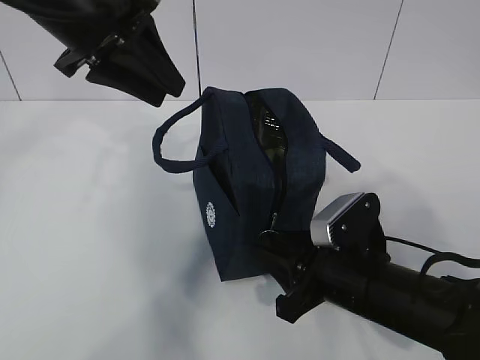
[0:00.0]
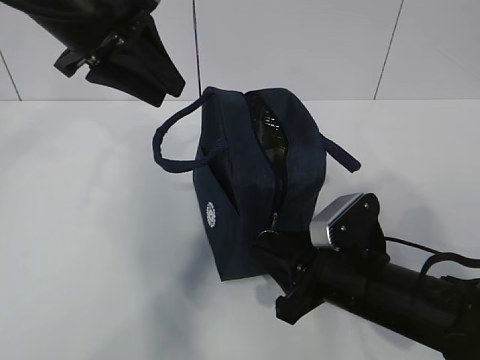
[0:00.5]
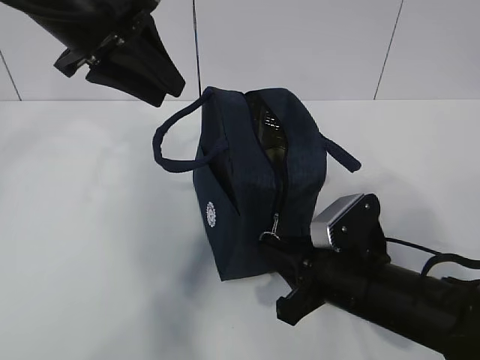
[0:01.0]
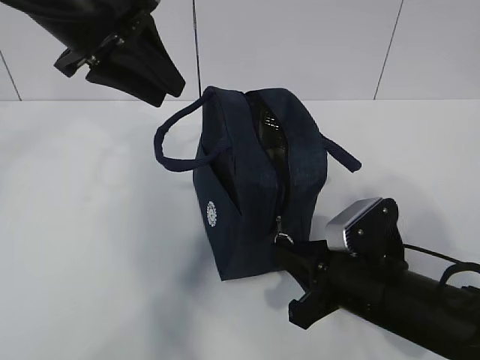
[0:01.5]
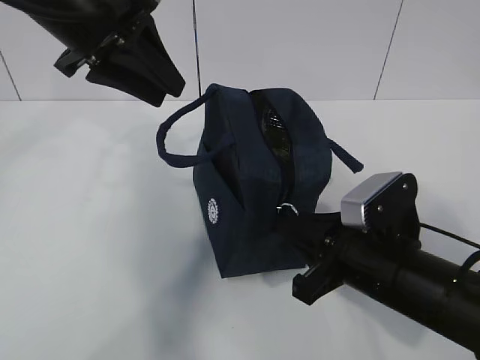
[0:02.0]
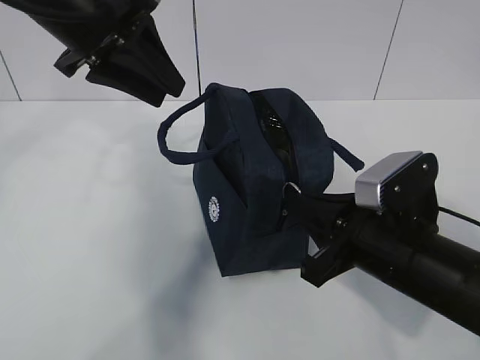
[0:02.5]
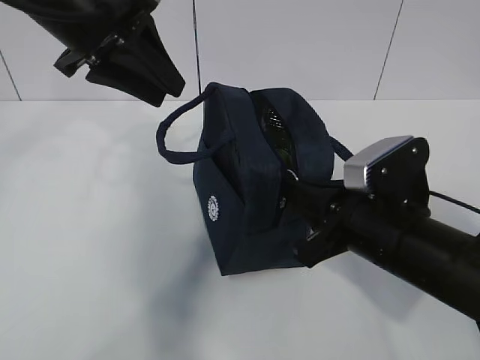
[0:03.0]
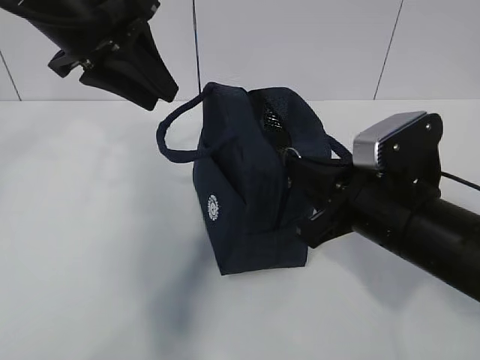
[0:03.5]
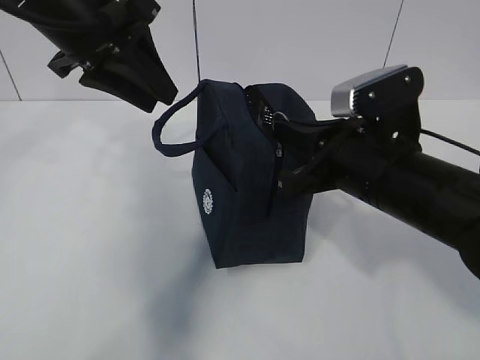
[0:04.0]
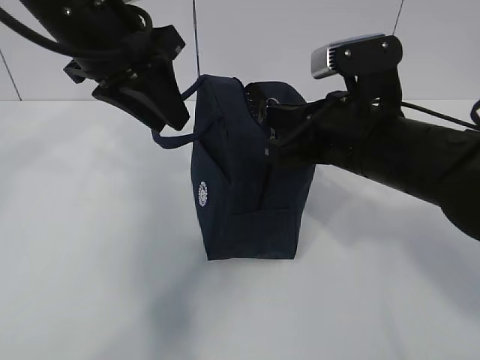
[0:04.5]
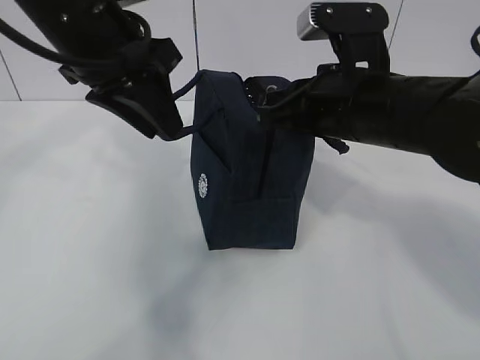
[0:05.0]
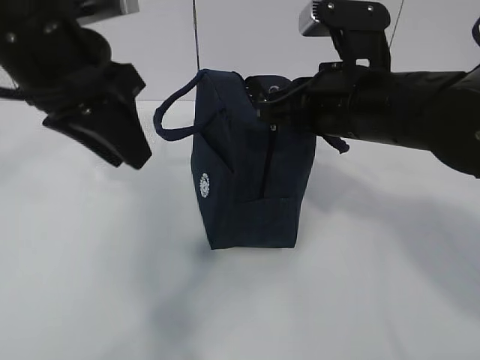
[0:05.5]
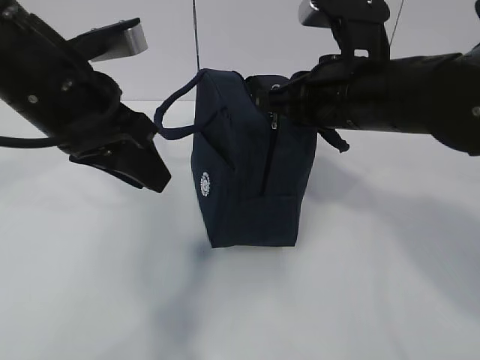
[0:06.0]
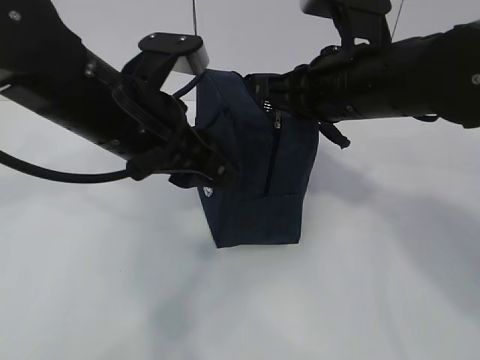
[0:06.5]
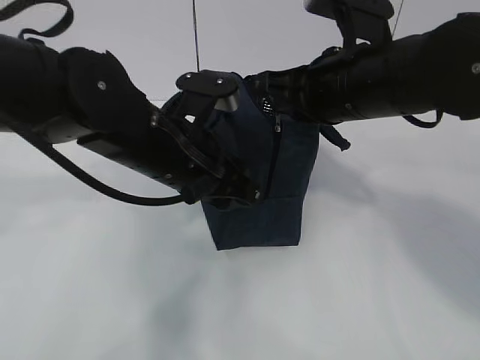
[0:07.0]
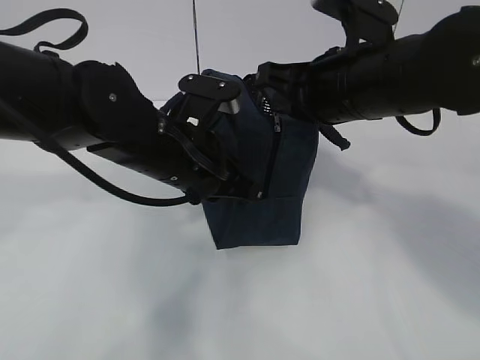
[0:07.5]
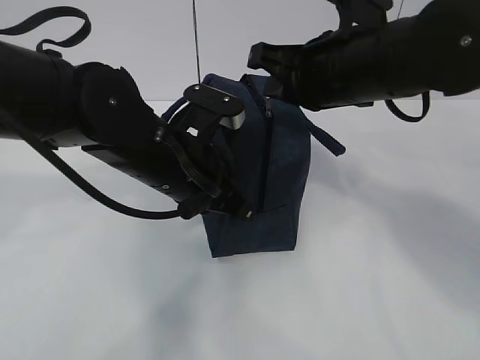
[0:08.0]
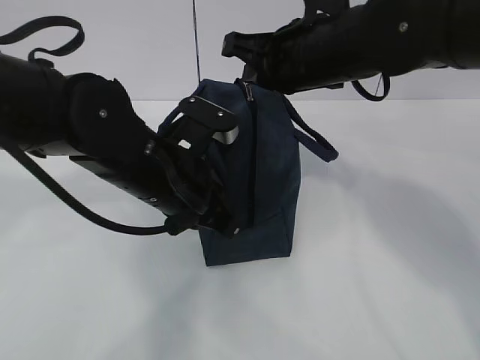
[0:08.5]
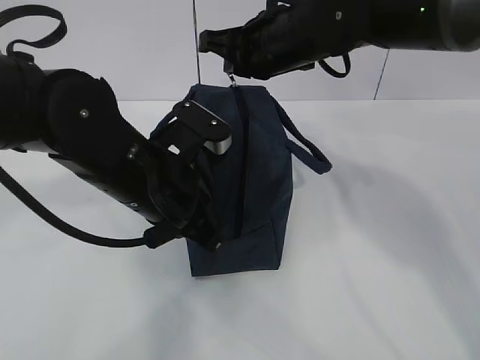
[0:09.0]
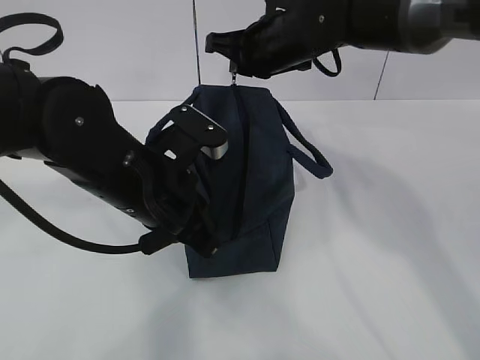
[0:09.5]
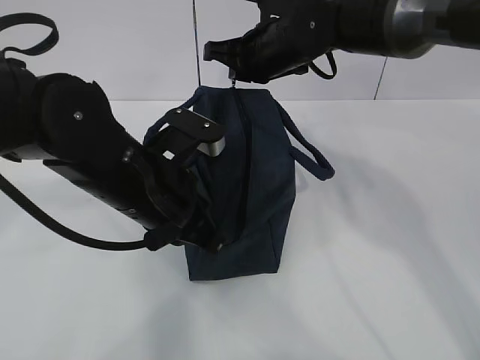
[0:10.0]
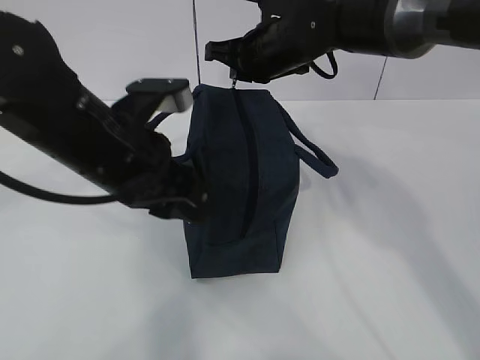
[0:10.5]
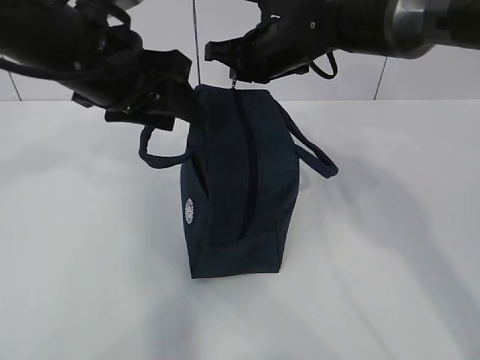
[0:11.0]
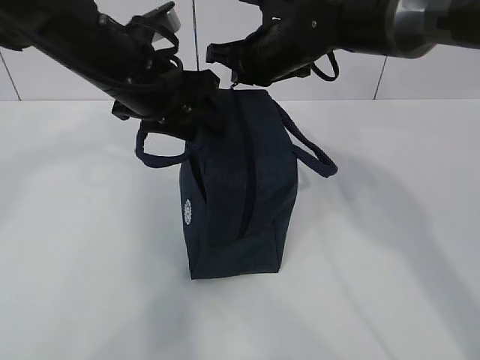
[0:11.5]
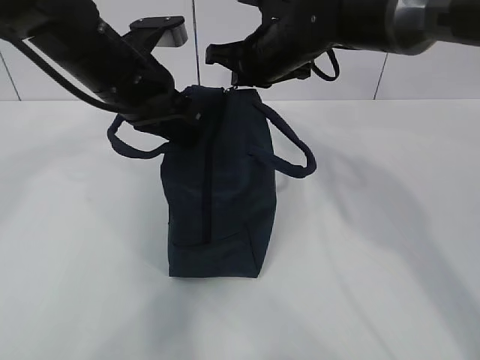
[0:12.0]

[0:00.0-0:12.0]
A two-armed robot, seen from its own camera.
Step, 0:00.0 to 0:04.0: Pull the zipper with your right hand.
0:00.0 to 0:02.0: The right gripper closes up.
0:02.0 to 0:04.0: The right gripper goes about 10 cm upward.
0:04.0 to 0:06.0: The right gripper moves upward, roughly 5 cm; the left gripper goes approximately 5 cm backward.
0:06.0 to 0:08.0: The left gripper shifts approximately 10 cm downward and to the right, and closes.
0:08.0 to 0:10.0: The right gripper moves forward, approximately 15 cm.
0:10.0 to 0:12.0: The left gripper is displaced forward and upward by about 10 cm, and opens, then closes once more.

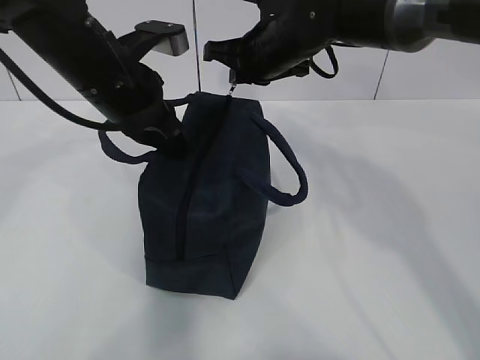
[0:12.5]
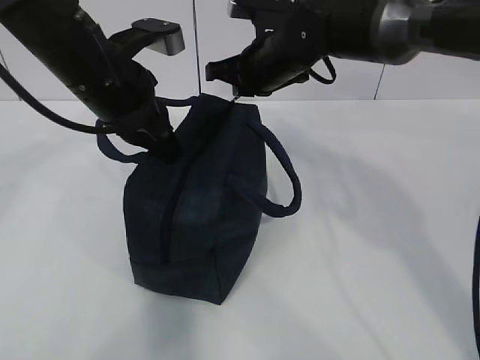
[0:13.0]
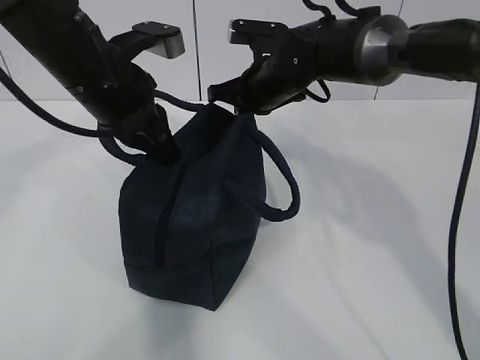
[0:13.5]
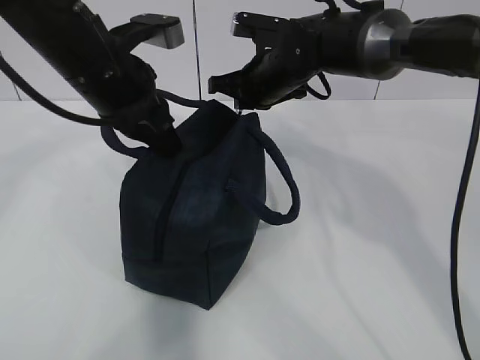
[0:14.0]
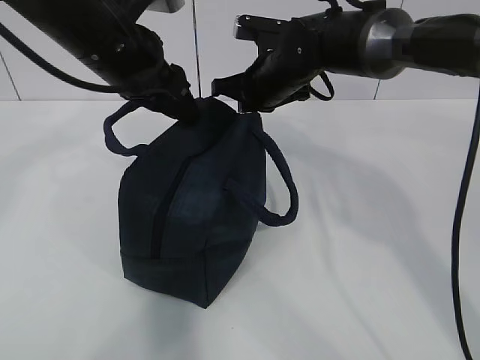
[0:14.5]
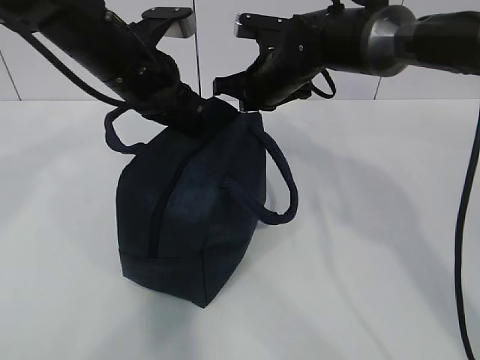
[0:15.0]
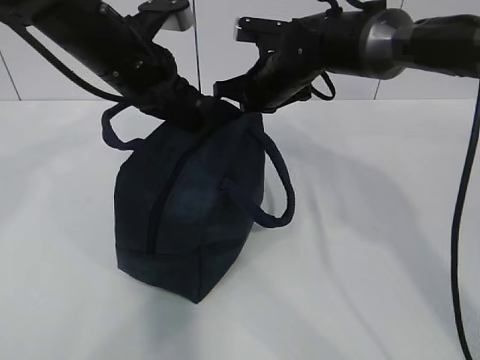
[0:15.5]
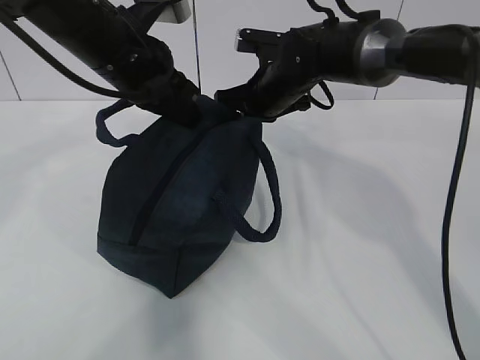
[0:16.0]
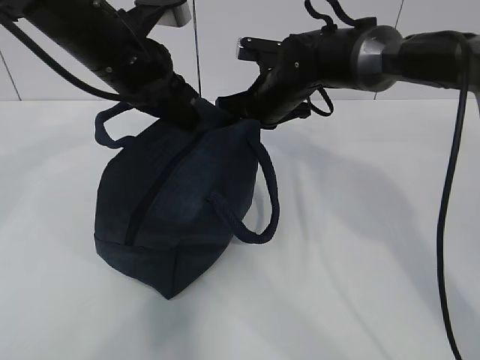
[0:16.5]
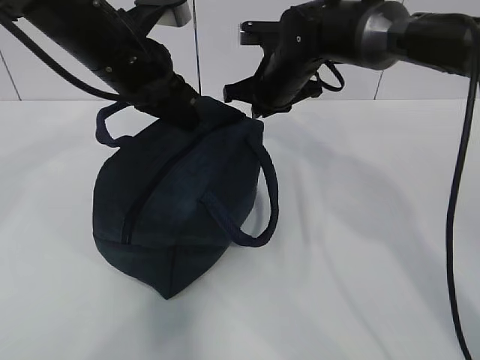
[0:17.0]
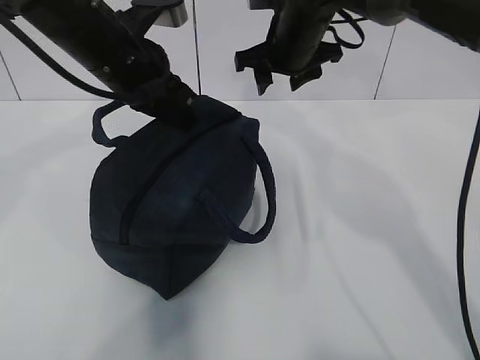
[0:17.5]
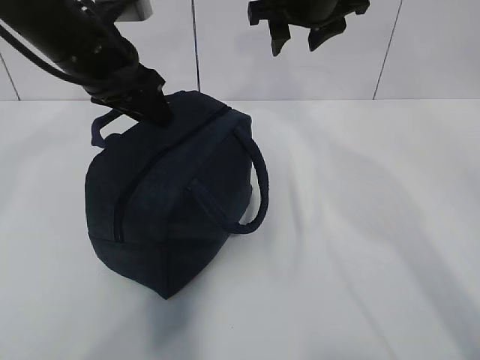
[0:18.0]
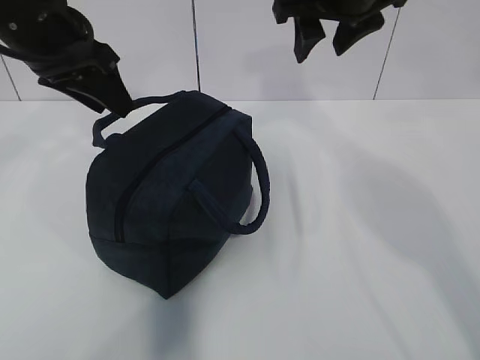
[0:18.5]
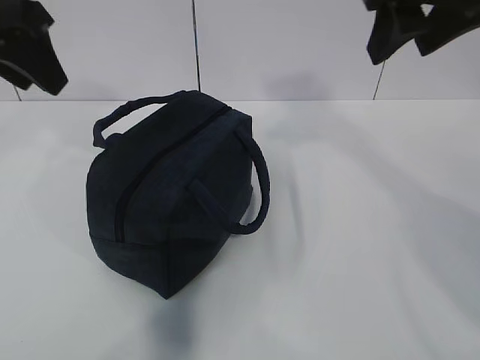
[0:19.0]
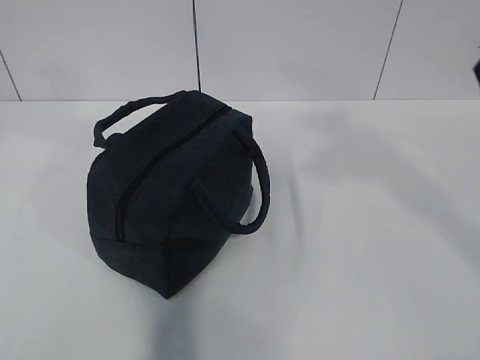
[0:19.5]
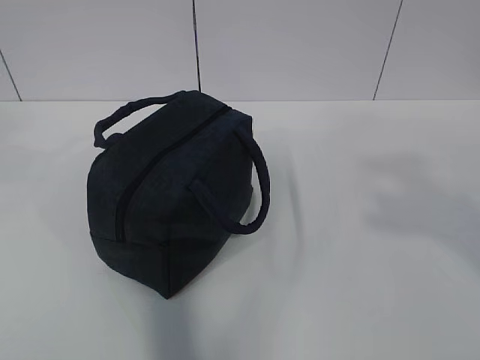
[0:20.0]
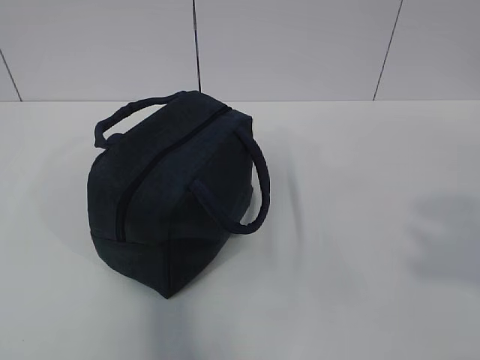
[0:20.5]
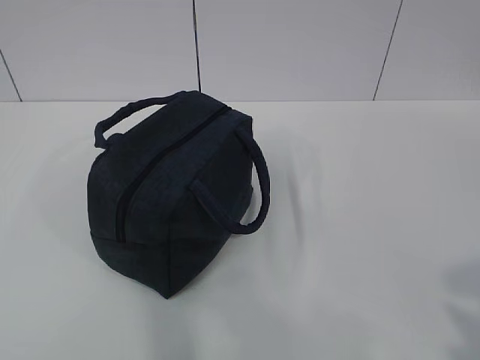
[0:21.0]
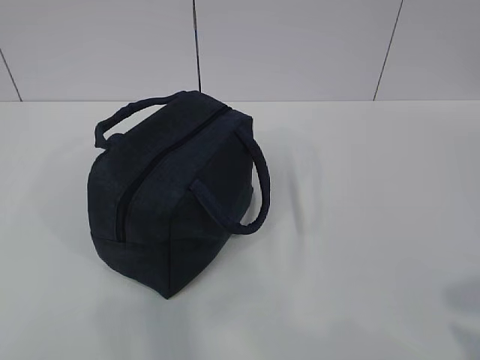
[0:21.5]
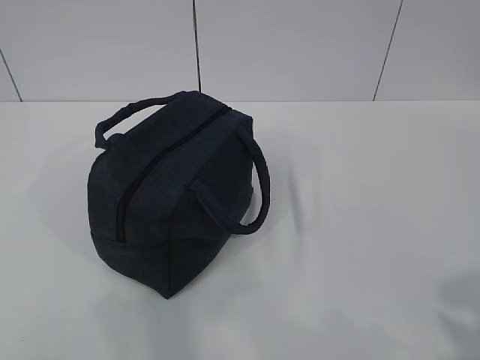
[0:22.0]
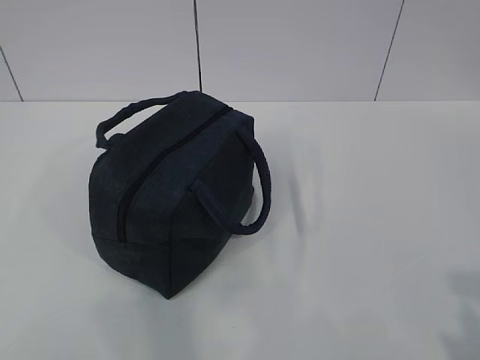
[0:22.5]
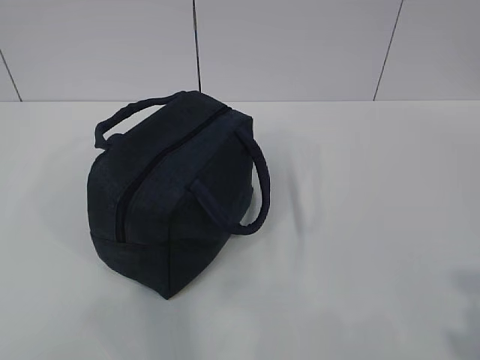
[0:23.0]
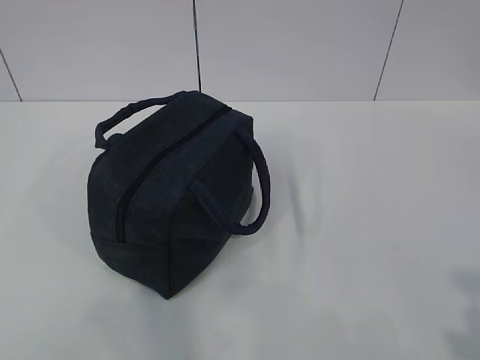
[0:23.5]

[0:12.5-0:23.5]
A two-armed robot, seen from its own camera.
0:12.5 to 0:14.5: The right gripper ends up approximately 5 cm from where it was. The left gripper opens up.
0:14.5 to 0:16.0: The left gripper closes up.
0:16.0 to 0:18.0: The left gripper opens its fingers; the right gripper travels upward by some 15 cm, and opens.
0:18.0 to 0:20.0: The right gripper heads backward and to the right, covering roughly 40 cm, while the left gripper is displaced backward, upward and to the left by approximately 35 cm.
0:20.0 to 0:21.5: Both grippers travel together downward and backward, approximately 20 cm.

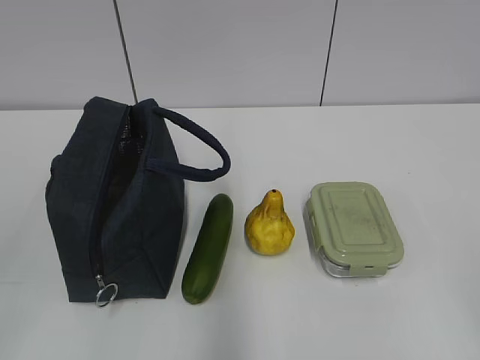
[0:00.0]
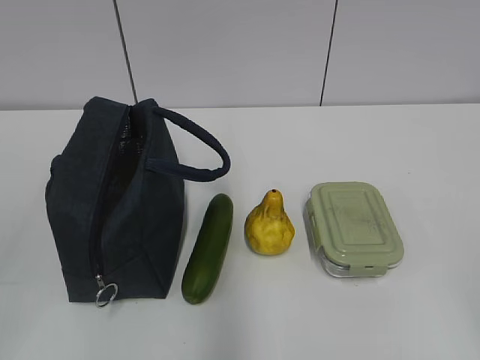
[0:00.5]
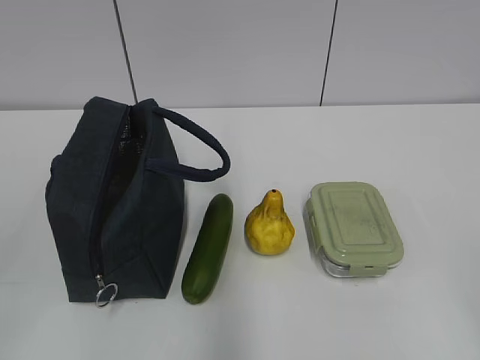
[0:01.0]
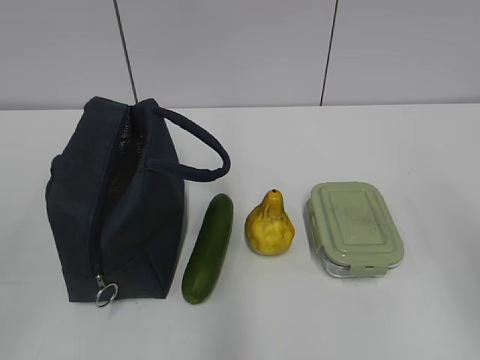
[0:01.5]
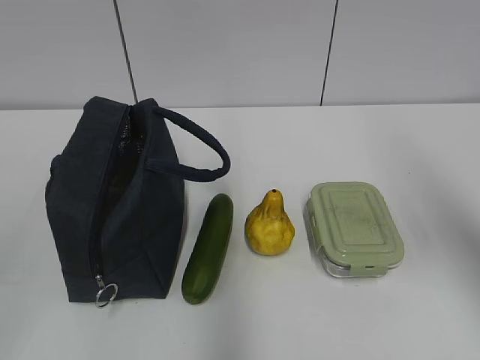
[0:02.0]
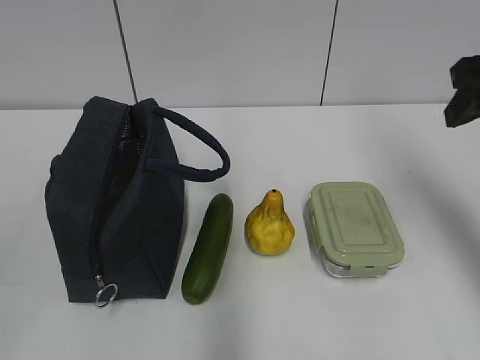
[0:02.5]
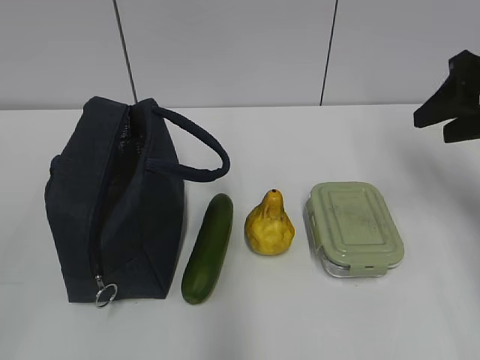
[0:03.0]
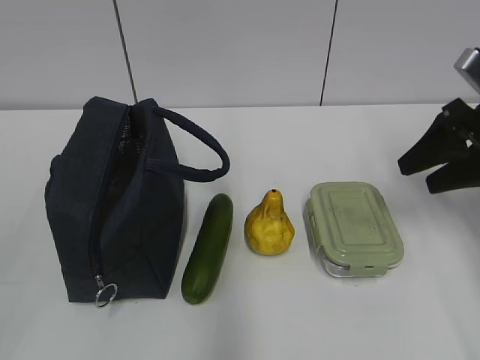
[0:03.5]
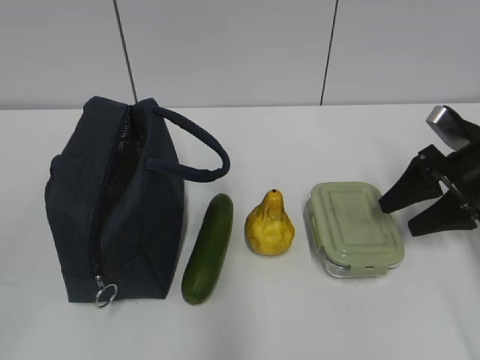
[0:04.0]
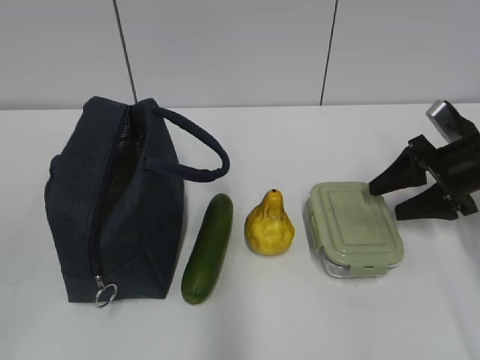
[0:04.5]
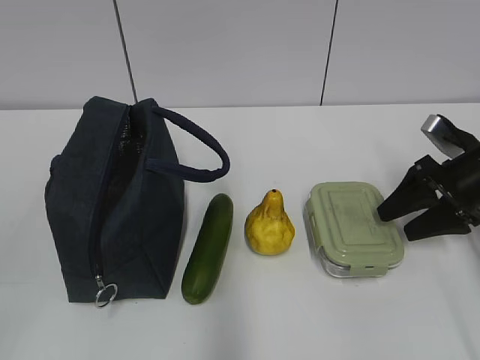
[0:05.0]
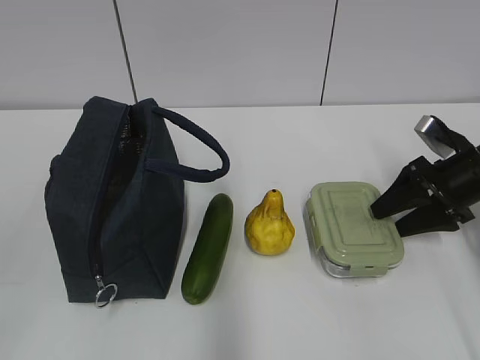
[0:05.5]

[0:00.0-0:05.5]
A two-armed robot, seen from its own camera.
0:02.0 to 0:03.5: The right gripper heads forward and downward, covering about 20 cm.
0:03.5 to 0:05.5: The right gripper travels downward by about 10 cm.
